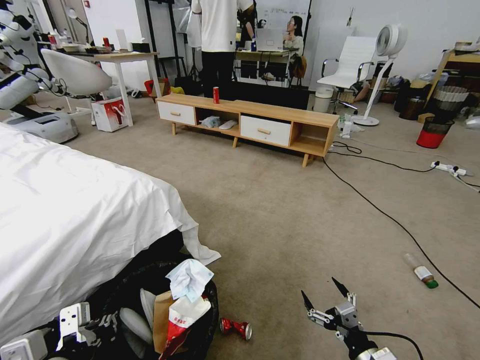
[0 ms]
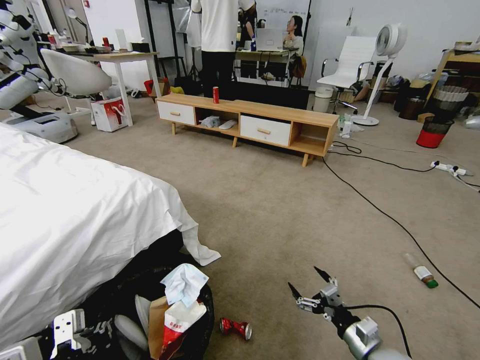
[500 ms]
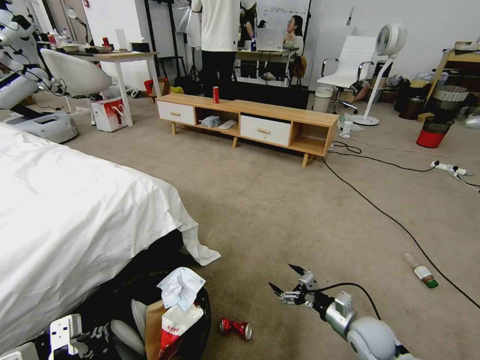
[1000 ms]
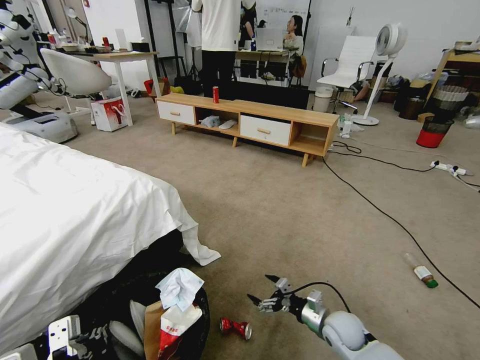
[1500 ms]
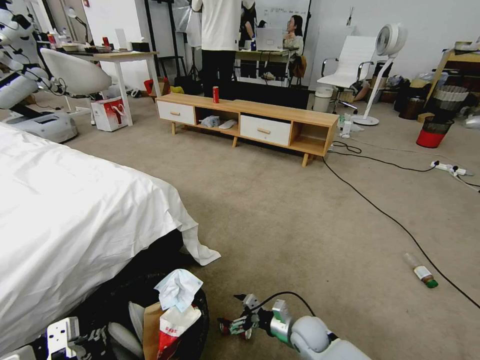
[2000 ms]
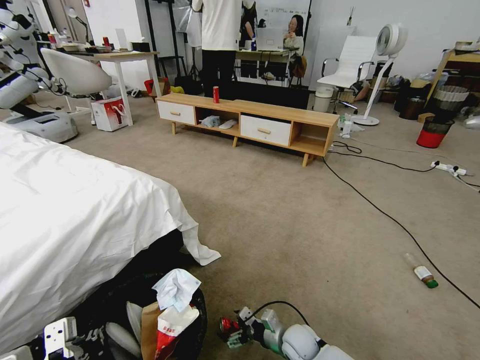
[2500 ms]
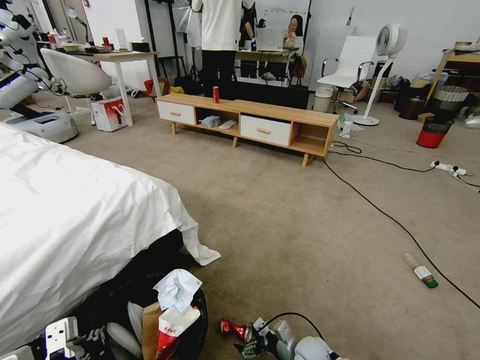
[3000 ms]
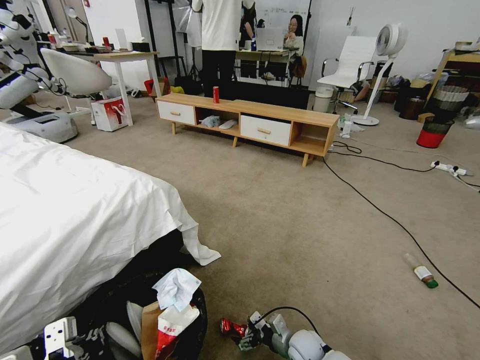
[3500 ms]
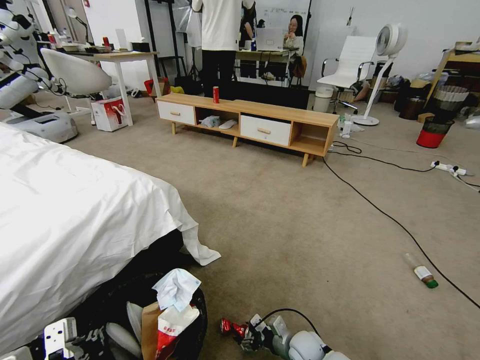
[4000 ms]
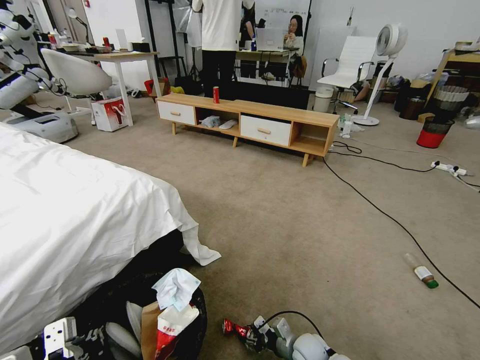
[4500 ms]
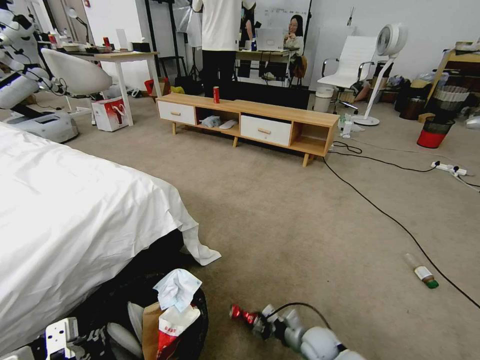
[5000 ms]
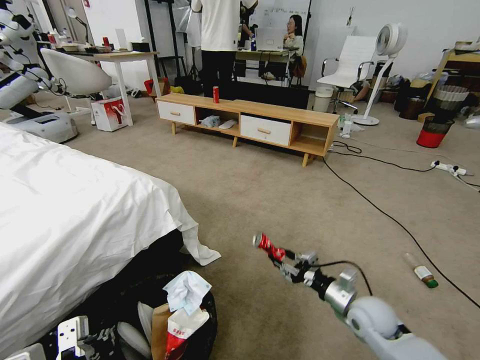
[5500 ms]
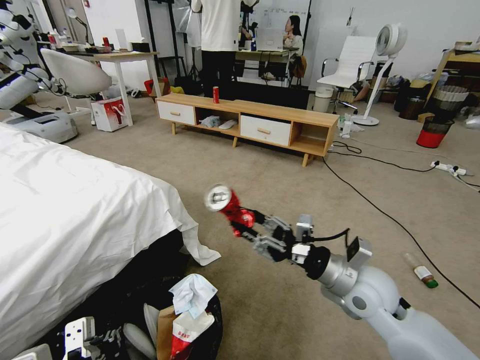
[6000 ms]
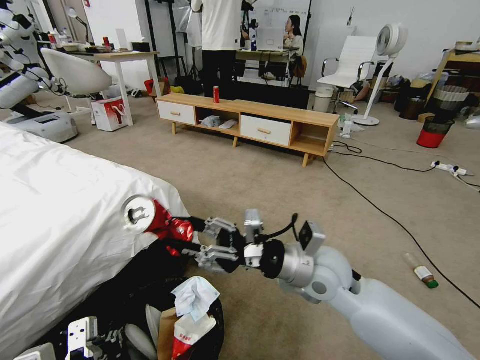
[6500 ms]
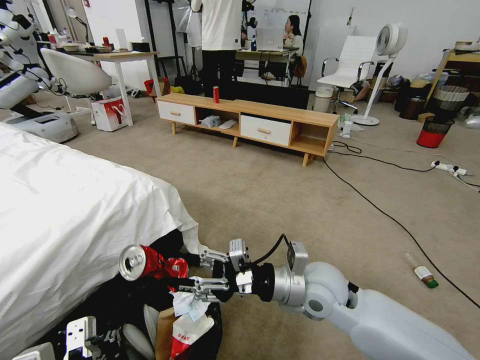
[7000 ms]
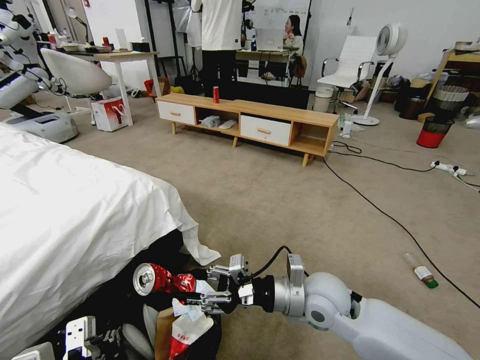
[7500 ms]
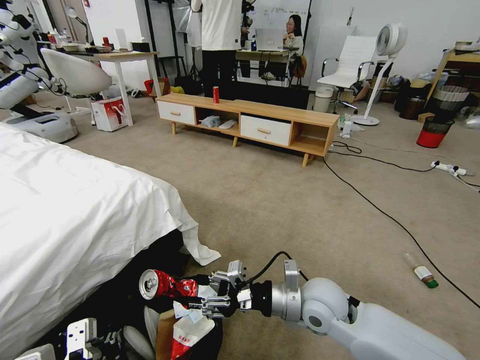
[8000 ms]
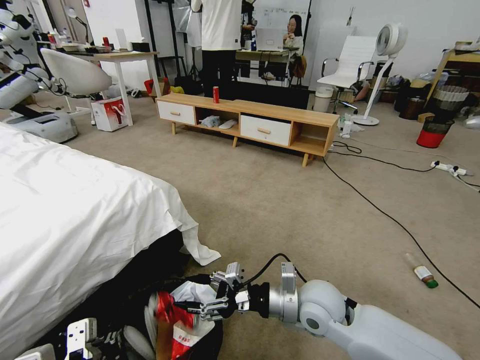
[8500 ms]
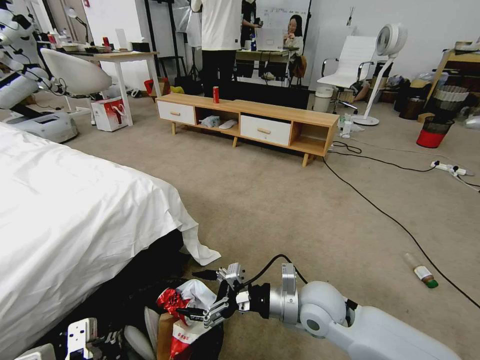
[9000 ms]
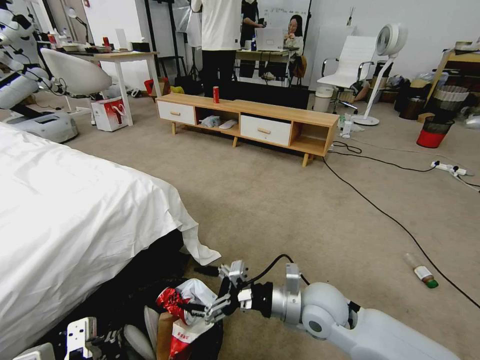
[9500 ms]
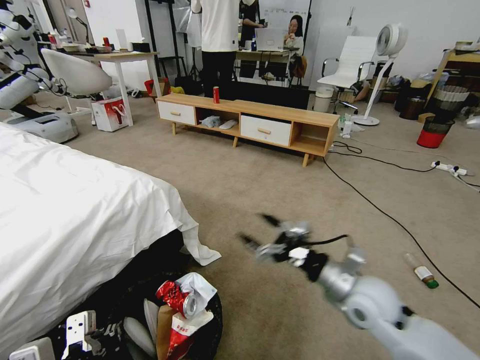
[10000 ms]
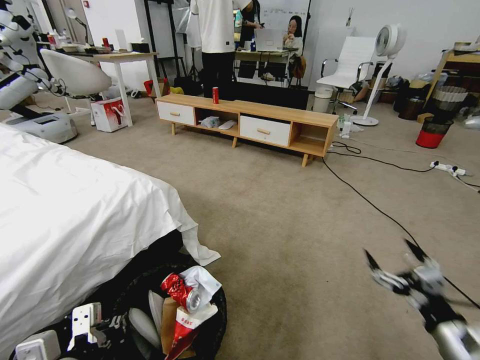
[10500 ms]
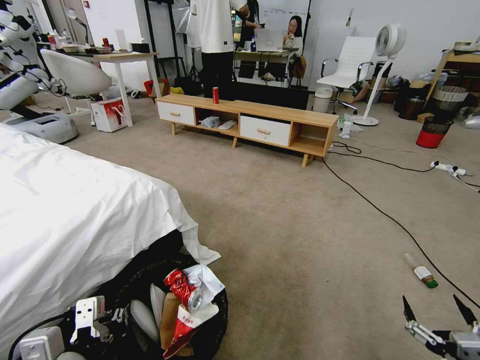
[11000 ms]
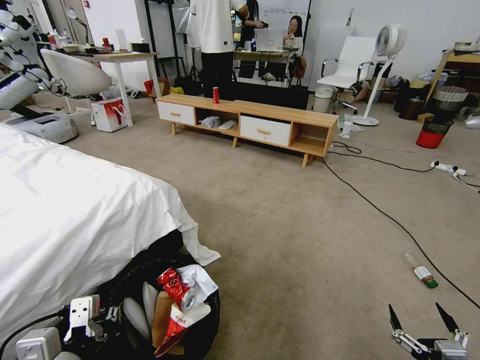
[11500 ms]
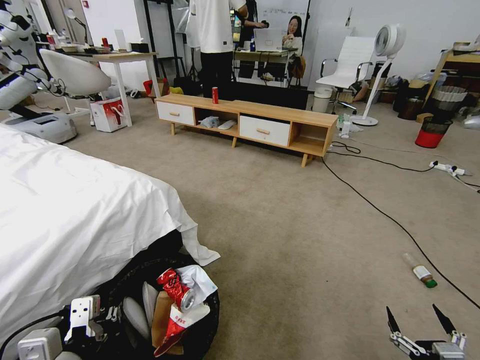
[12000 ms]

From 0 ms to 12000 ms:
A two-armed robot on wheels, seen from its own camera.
Task of the whole recording: Pick up the trash bin and place the garbage on the floor into it.
From 0 ms to 2000 ms: The right gripper shifts approximately 20 cm forward, to the left and downward.
From 2000 ms to 4000 ms: The right gripper travels downward by about 5 cm.
From 4000 ms to 6000 ms: The right gripper travels upward by some 30 cm.
From 6000 ms to 8000 ms: The right gripper goes approximately 10 cm to the left.
From 8000 ms to 10000 ms: The right gripper goes about 10 cm to the right, and opens its fingers.
From 10000 ms to 12000 ms: The right gripper shifts approximately 30 cm backward, downward and to the right.

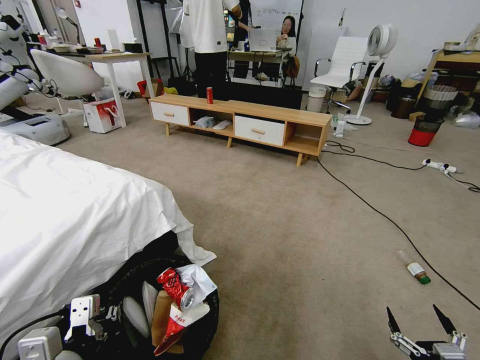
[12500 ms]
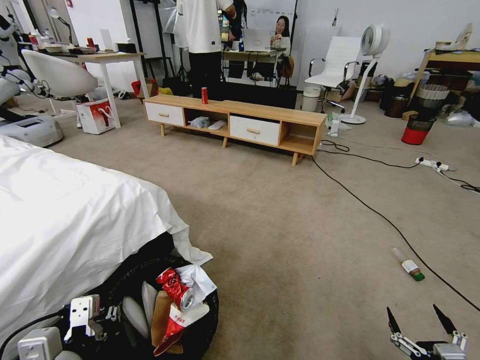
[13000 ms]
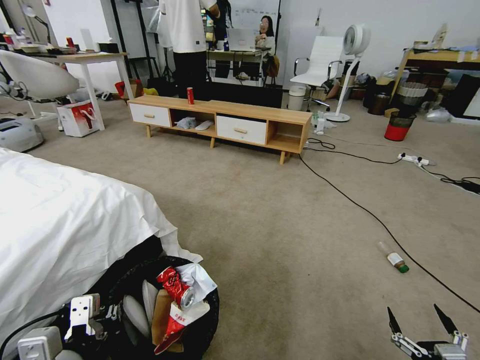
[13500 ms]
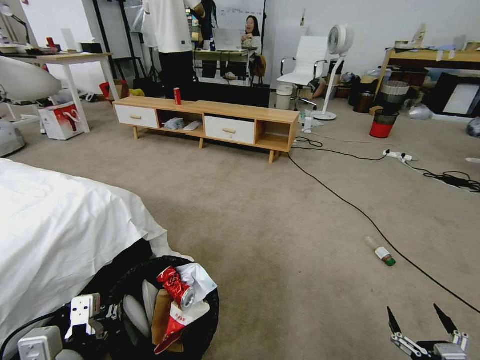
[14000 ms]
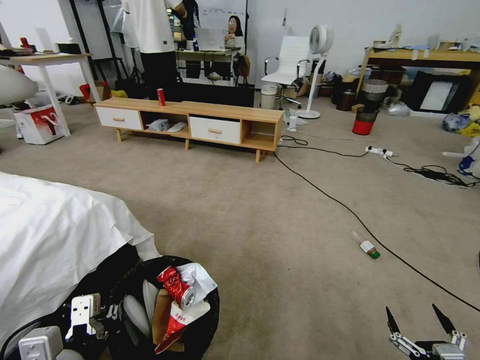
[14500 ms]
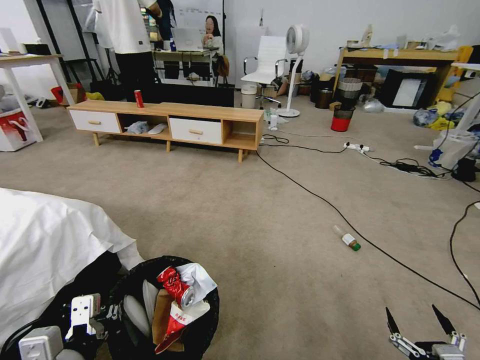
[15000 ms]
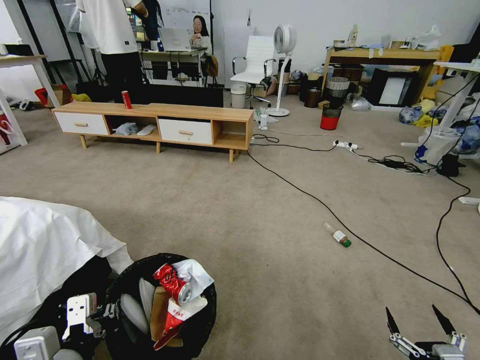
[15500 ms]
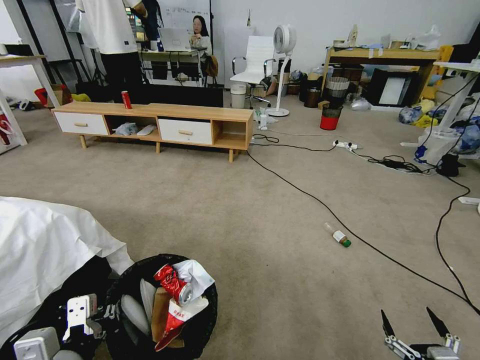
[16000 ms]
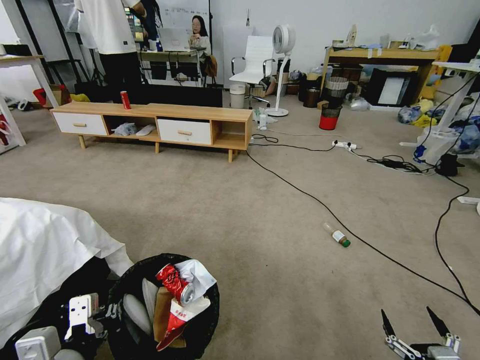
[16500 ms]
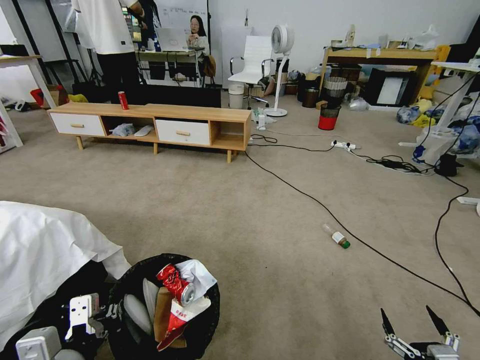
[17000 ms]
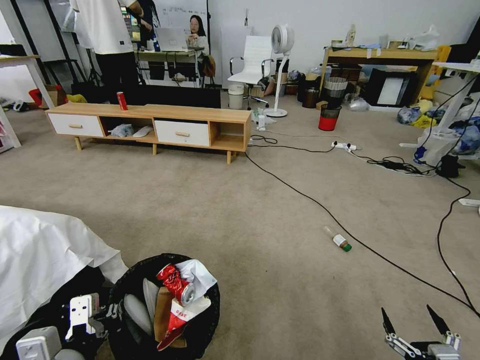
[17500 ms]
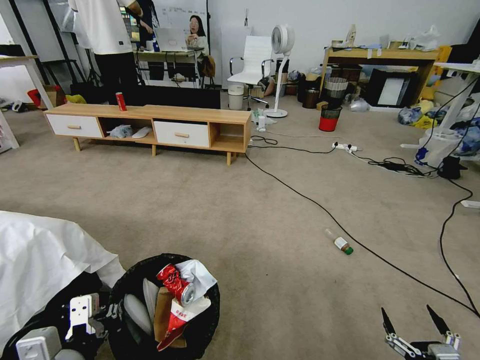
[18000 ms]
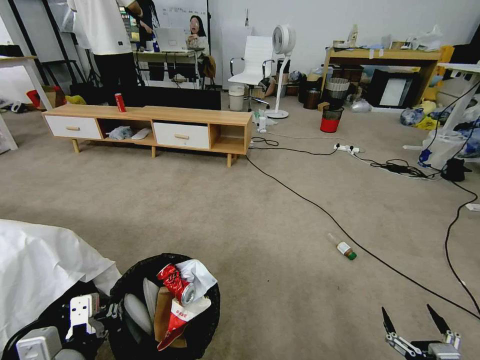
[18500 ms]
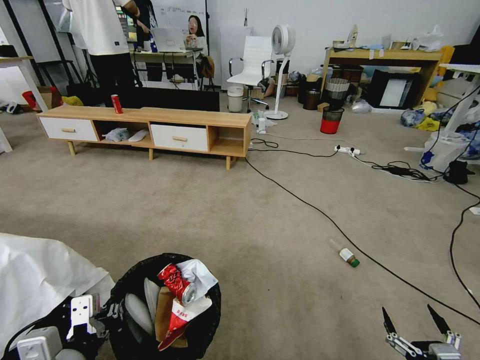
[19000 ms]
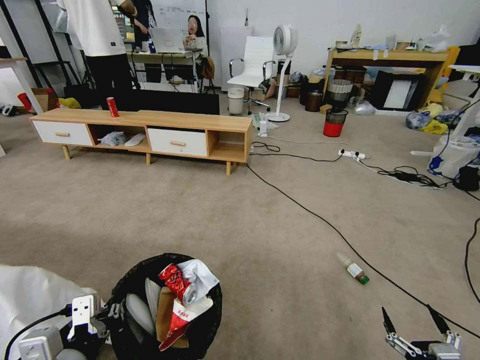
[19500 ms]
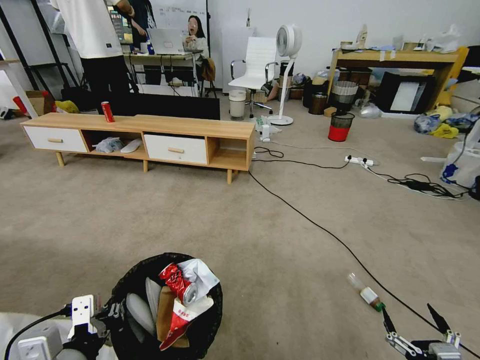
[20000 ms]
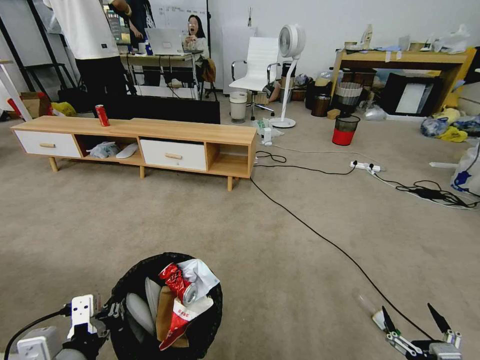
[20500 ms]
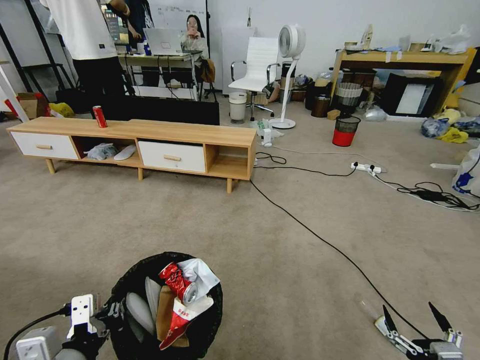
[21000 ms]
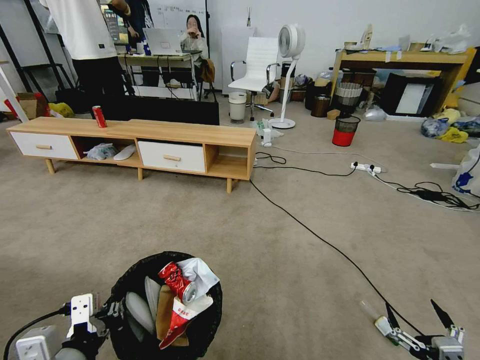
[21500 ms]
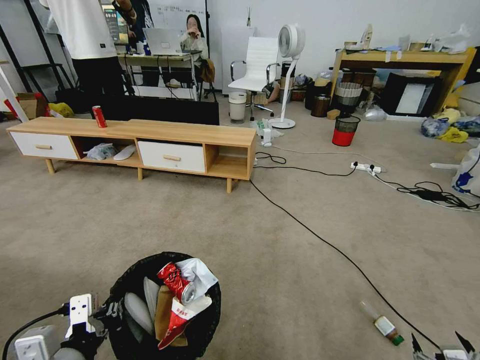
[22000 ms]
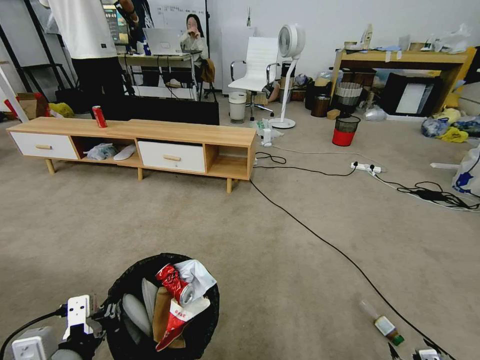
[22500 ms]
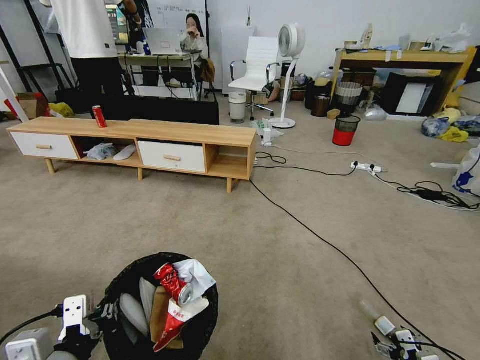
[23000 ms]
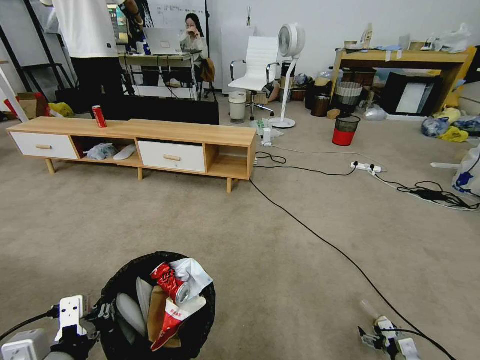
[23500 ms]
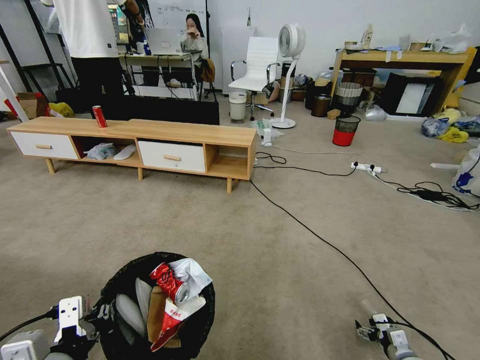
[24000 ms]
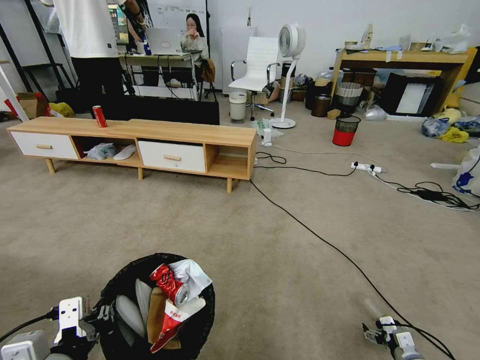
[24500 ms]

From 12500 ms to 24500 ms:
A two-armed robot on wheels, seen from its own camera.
Task of the whole recording: Pick up the trash bin and place the garbage on the floor into it.
From 20500 ms to 22500 ms: The right gripper heads downward and to the right, covering approximately 10 cm.
From 22500 ms to 24500 ms: The right gripper travels forward and downward by roughly 15 cm.

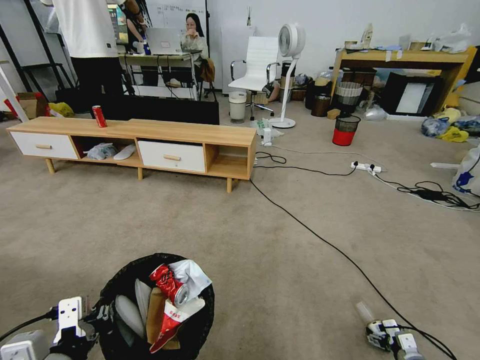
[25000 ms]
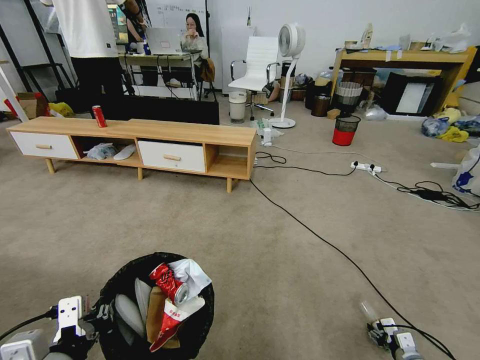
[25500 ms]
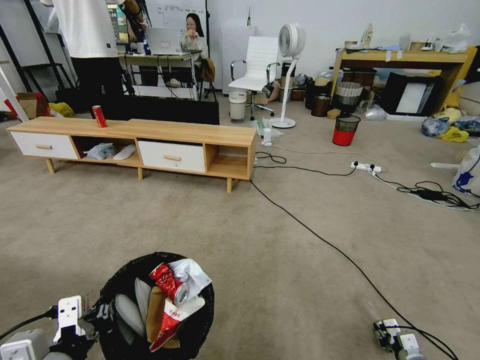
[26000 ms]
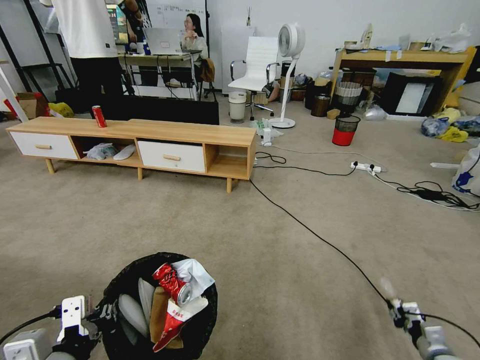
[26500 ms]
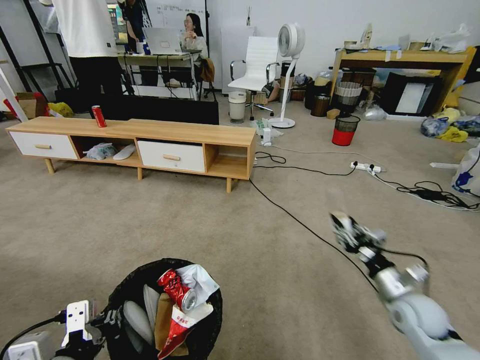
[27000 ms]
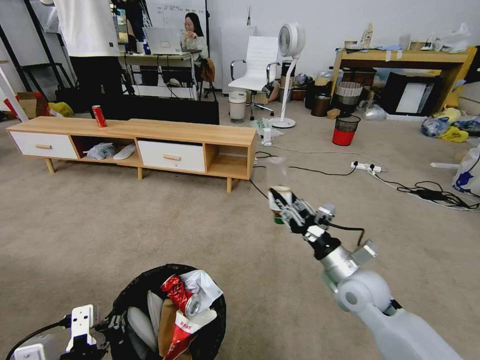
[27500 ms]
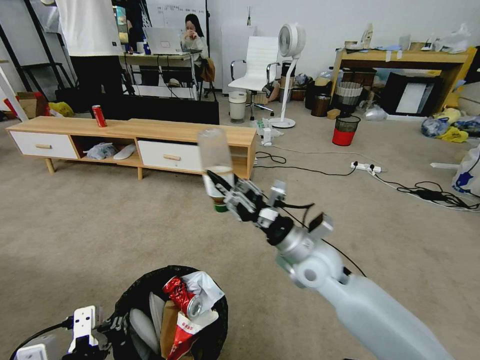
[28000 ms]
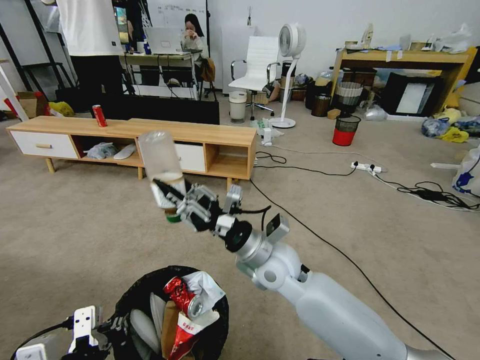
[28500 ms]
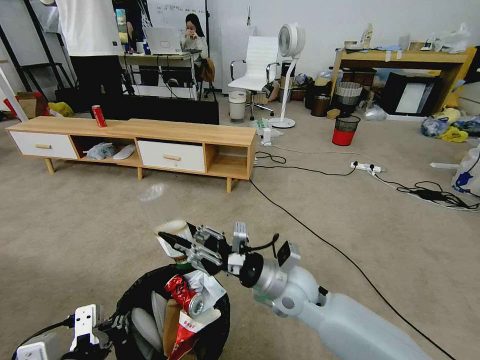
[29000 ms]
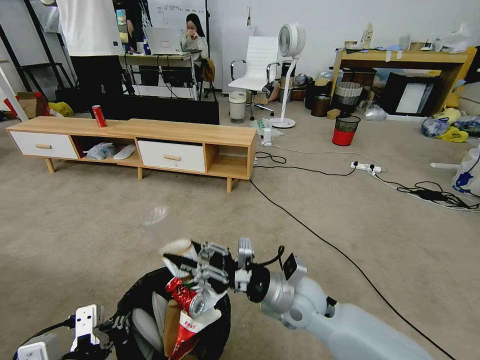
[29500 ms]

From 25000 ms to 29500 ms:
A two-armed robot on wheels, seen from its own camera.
Task of the whole recording: Pick up the trash bin and place the garbage on the floor into it.
From 25000 ms to 27000 ms: The right gripper travels upward by roughly 20 cm, and closes.
From 27000 ms to 29500 ms: The right gripper shifts approximately 30 cm to the left.
